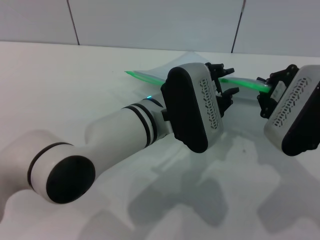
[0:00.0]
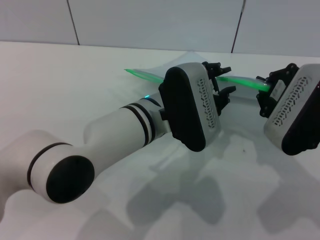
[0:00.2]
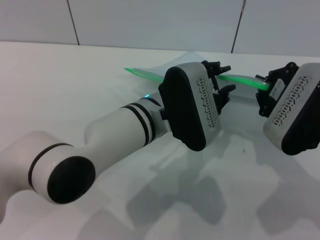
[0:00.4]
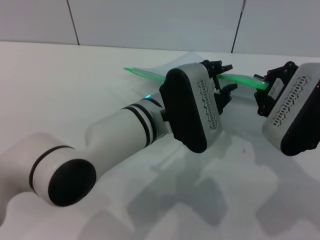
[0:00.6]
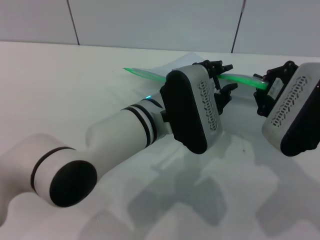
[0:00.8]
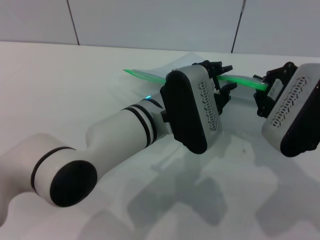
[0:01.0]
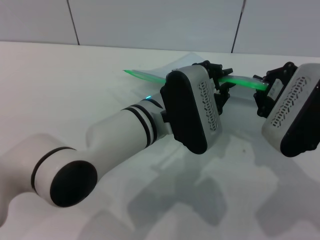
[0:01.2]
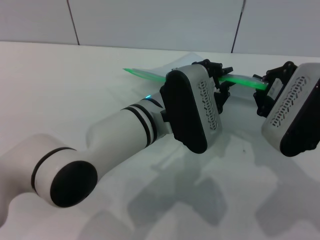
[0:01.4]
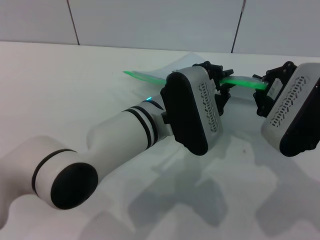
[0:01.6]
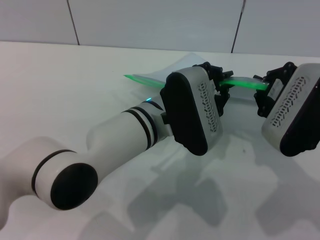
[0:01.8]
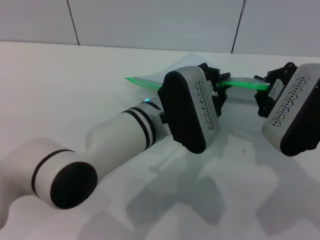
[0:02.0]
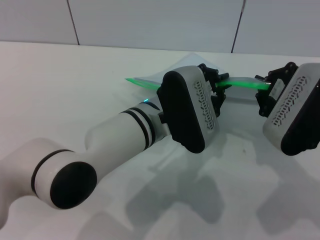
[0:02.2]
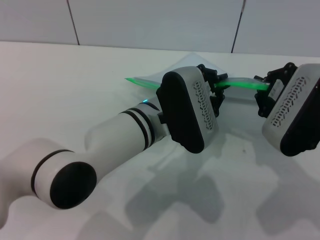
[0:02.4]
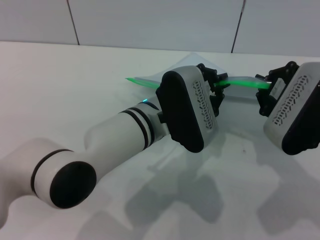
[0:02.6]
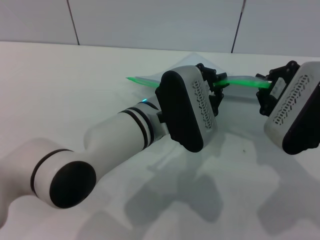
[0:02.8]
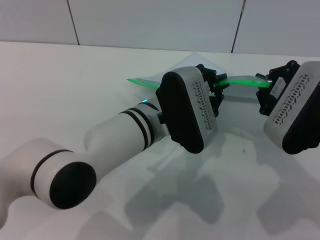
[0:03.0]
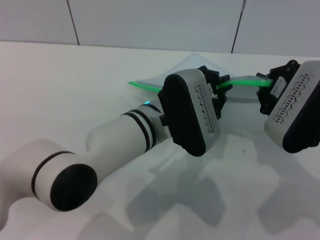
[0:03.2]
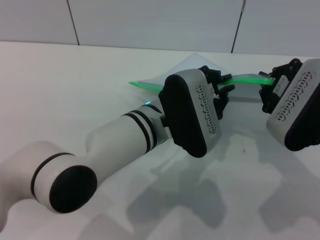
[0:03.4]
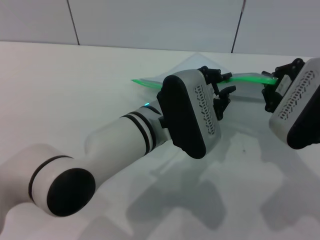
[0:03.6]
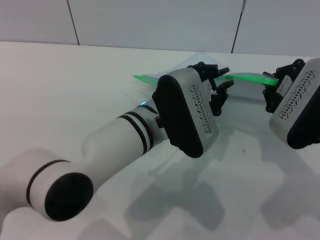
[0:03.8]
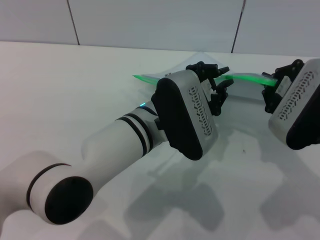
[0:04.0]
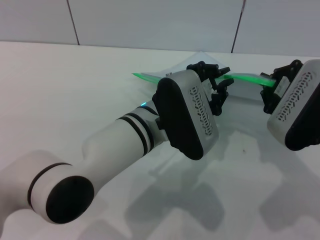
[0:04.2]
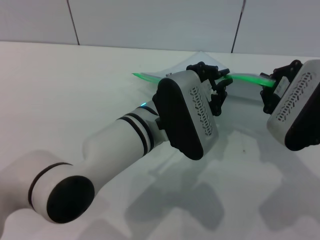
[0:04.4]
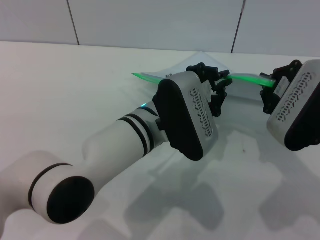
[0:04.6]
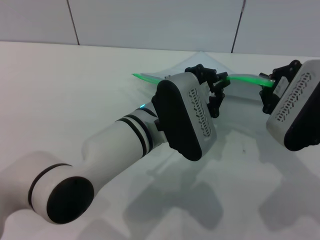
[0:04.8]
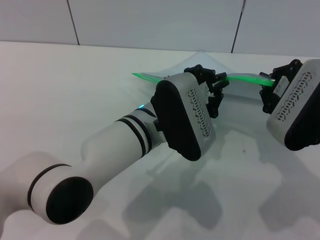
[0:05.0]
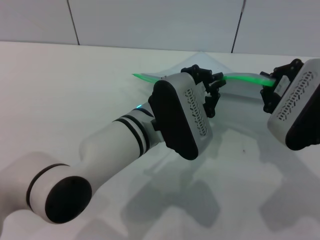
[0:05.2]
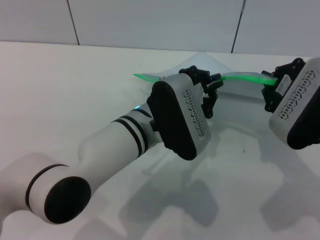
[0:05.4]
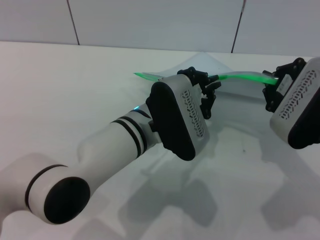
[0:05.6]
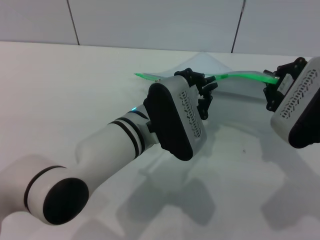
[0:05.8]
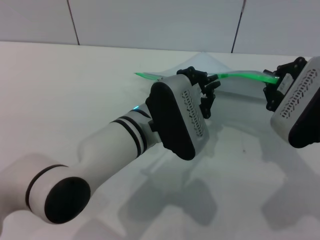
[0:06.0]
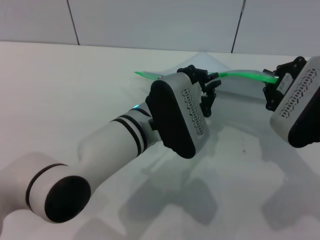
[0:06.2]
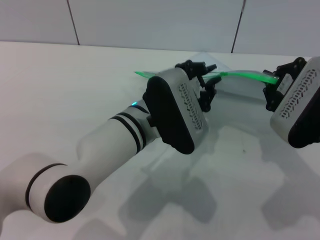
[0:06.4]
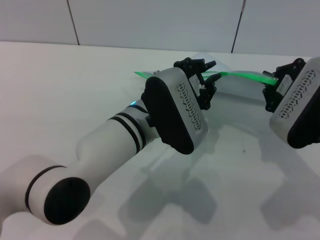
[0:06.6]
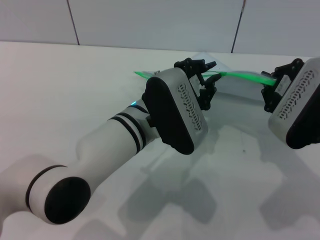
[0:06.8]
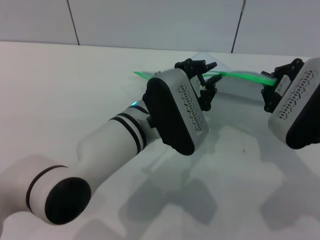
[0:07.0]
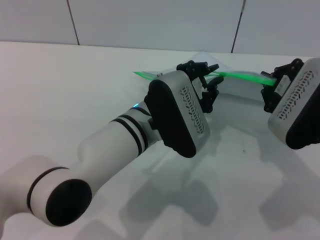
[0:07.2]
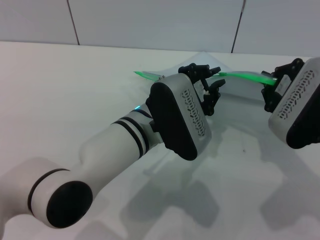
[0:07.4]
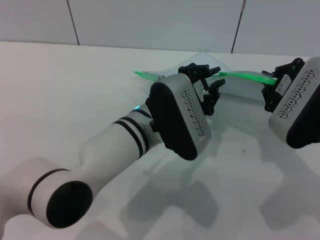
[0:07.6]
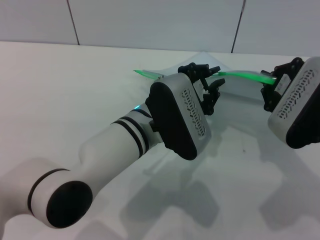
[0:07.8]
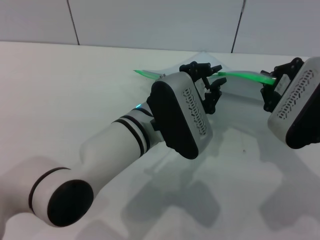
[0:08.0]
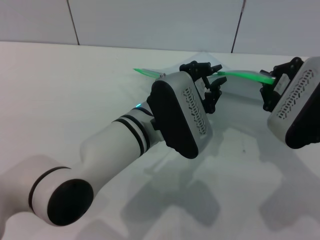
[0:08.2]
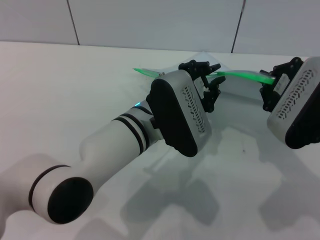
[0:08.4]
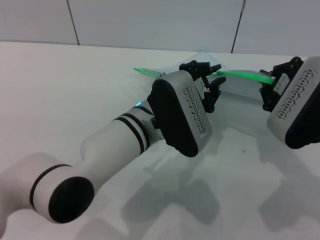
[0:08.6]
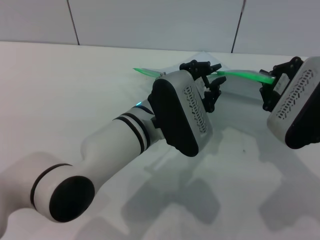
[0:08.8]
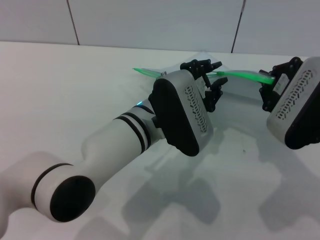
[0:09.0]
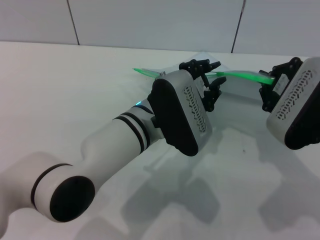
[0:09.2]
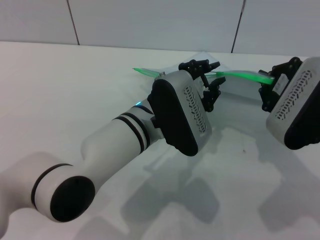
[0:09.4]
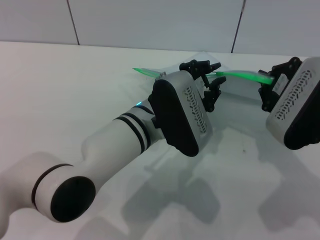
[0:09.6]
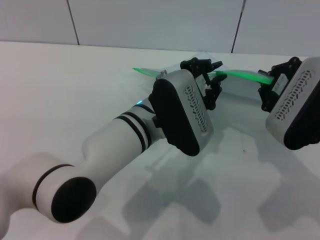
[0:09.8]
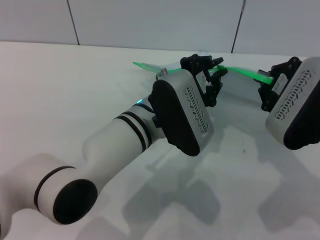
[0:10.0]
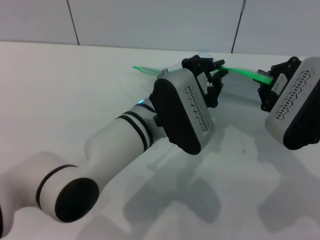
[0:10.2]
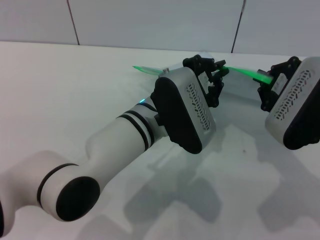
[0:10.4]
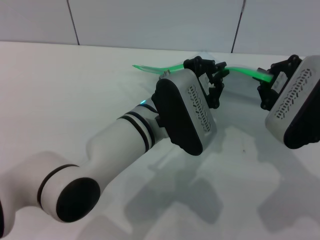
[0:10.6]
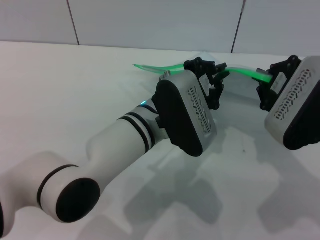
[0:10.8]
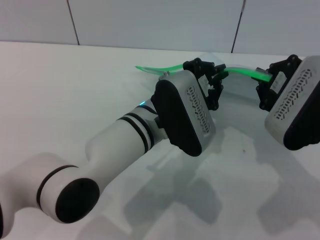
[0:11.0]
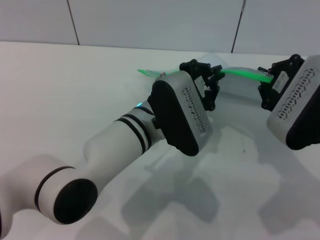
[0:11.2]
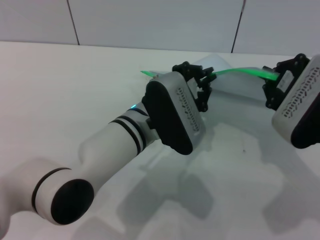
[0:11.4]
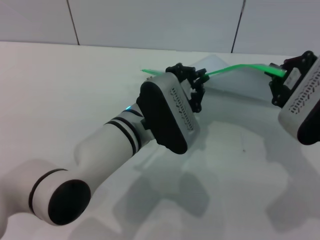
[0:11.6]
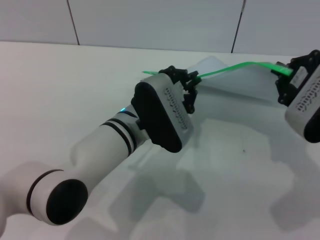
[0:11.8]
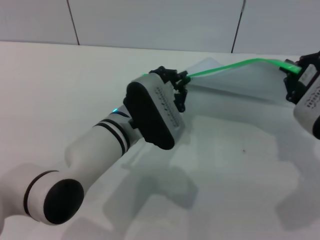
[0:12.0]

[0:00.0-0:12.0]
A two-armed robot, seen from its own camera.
0:00.0 to 0:03.0: Both grippers stay put.
0:03.0 to 0:04.4: Neither gripper changes place.
0:04.4 to 0:06.0: There are only small adjustments of the grippers.
0:06.0 to 0:09.0: Both grippers stay about where they are.
0:09.0 to 0:10.4: Both grippers stay about where they are.

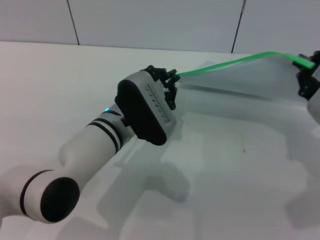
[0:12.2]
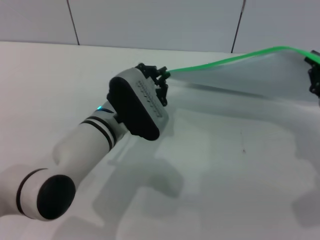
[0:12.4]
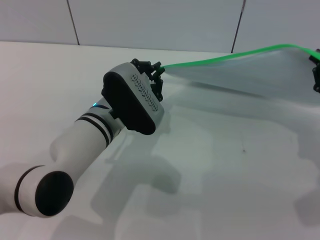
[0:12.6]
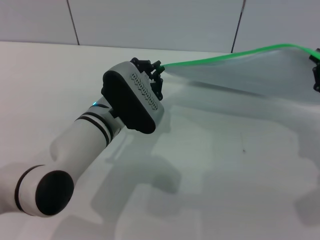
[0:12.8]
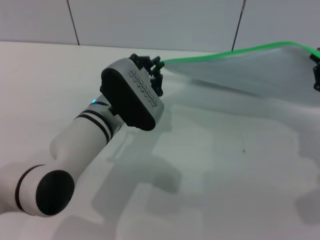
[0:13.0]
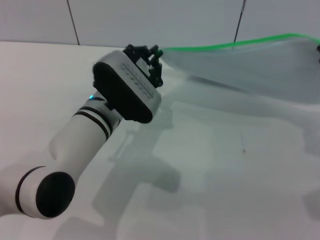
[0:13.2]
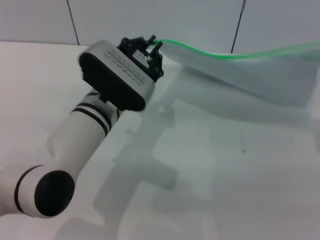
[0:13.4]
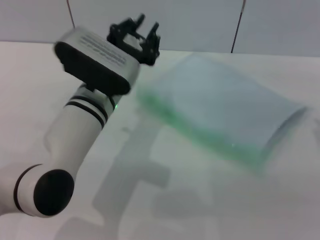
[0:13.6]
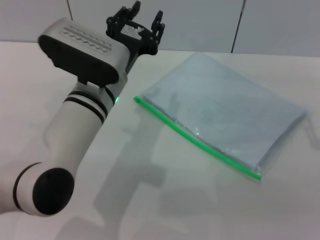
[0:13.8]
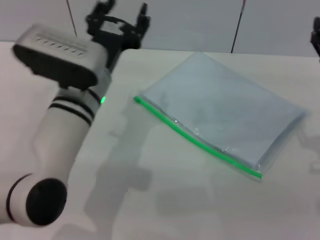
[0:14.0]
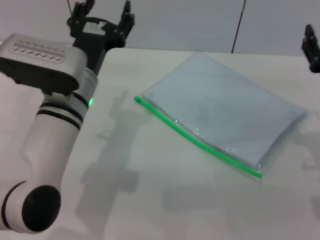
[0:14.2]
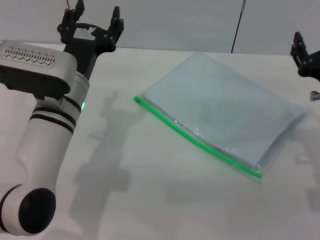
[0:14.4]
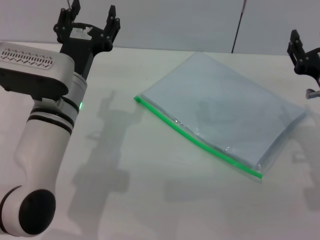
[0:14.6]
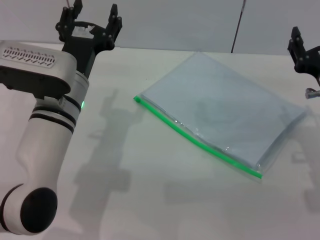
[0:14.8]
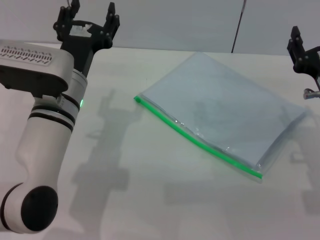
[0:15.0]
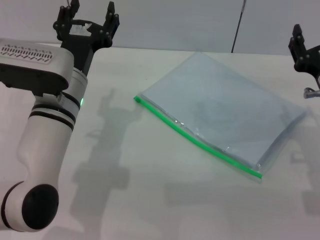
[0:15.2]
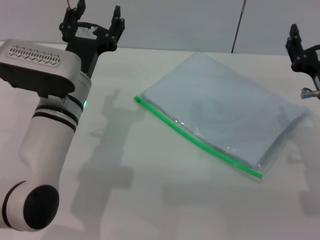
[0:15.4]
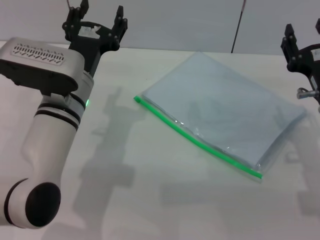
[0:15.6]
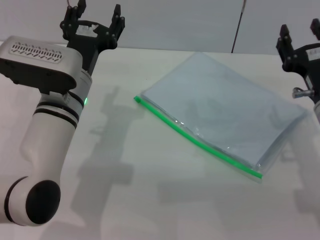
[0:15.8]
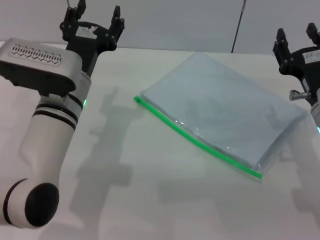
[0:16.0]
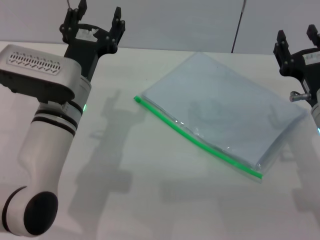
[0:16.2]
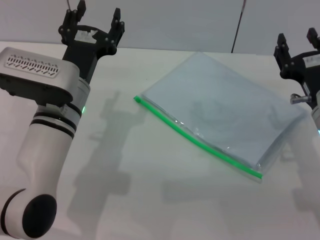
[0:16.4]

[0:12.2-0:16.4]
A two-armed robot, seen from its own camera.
Step, 0:13.6 to 0:14.8: Place the transparent plastic bag.
0:13.6 to 0:15.0: The left gripper opens, while the right gripper travels downward by about 10 cm, and opens its fingers.
0:15.0 to 0:16.4: The grippers move only a little.
